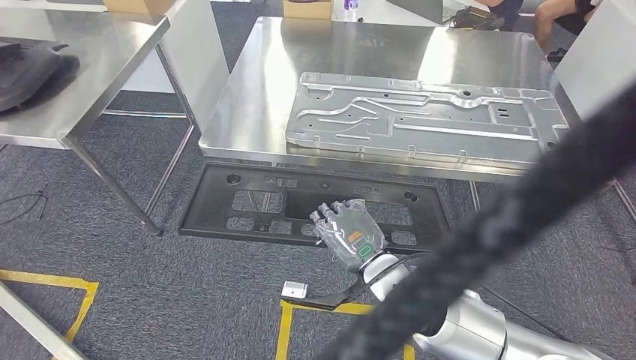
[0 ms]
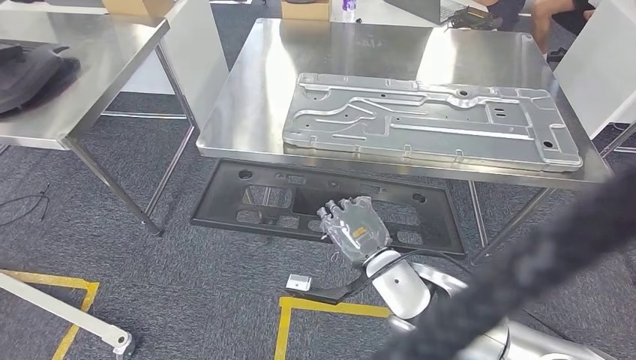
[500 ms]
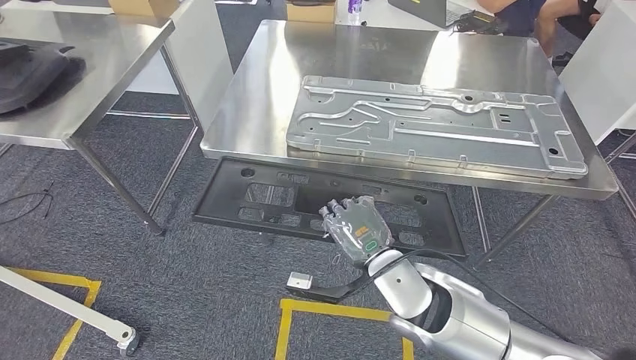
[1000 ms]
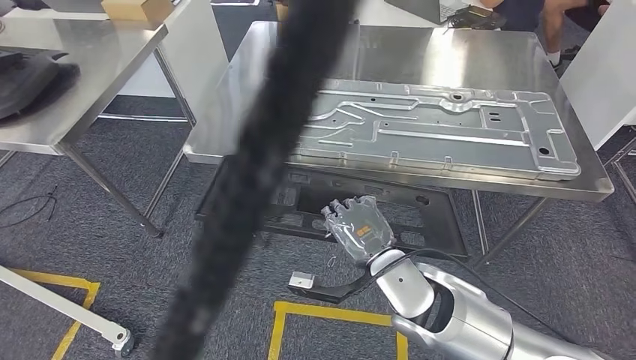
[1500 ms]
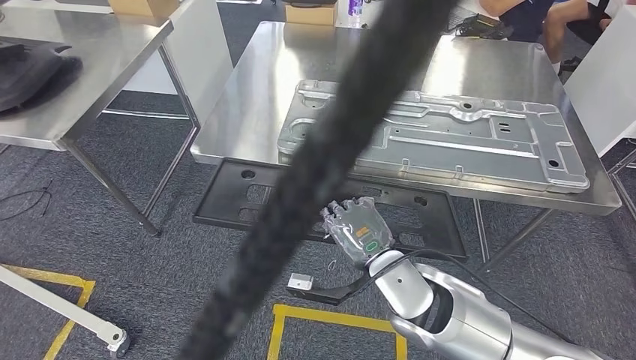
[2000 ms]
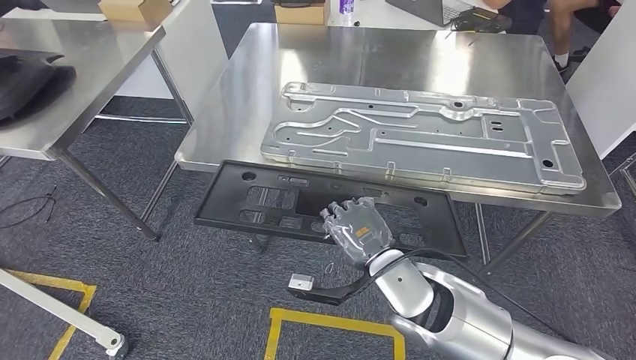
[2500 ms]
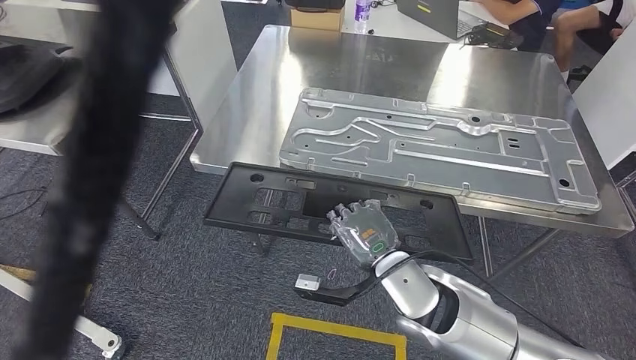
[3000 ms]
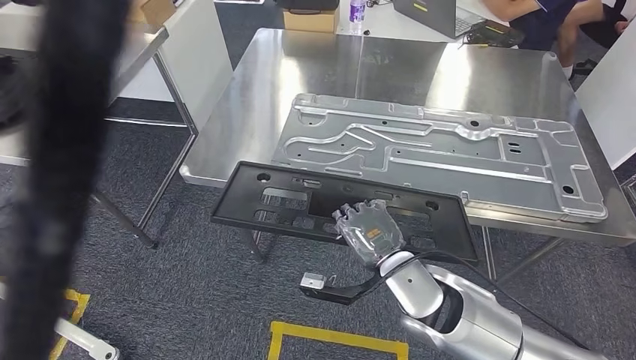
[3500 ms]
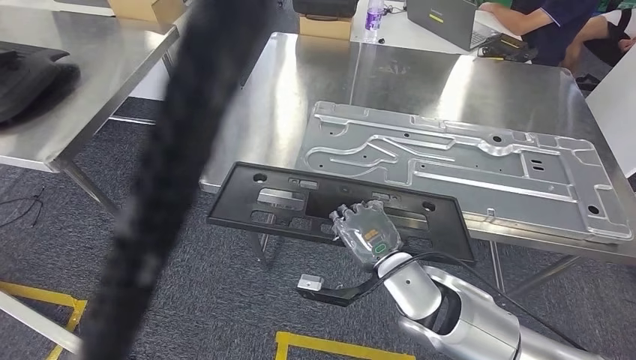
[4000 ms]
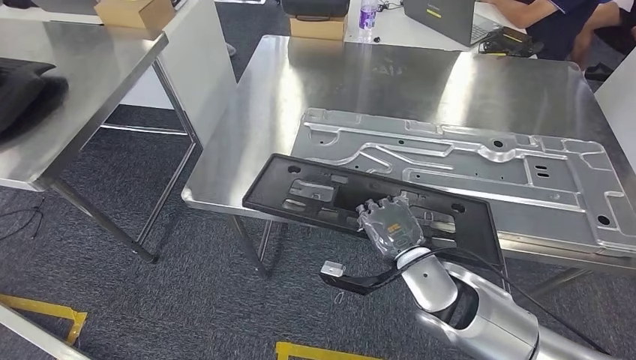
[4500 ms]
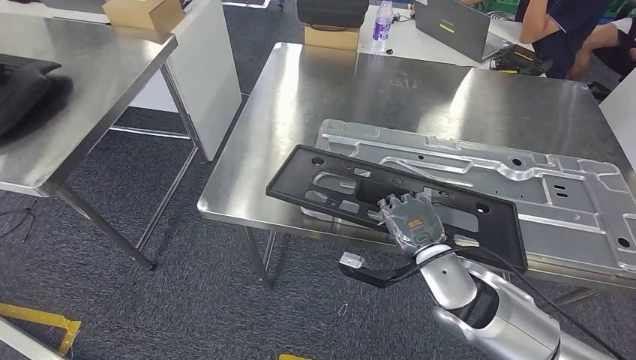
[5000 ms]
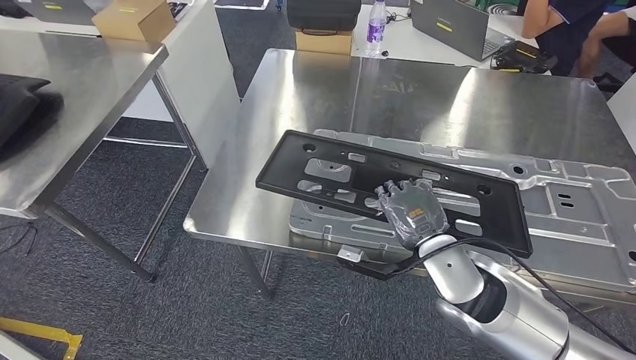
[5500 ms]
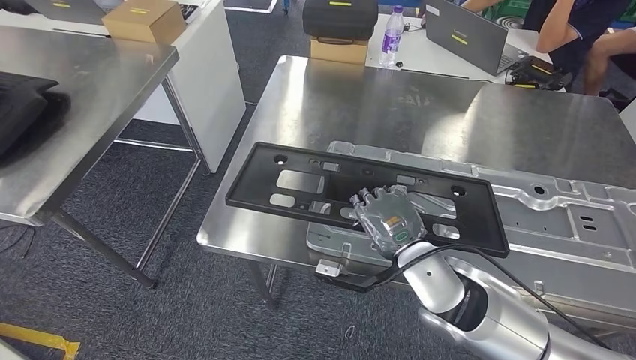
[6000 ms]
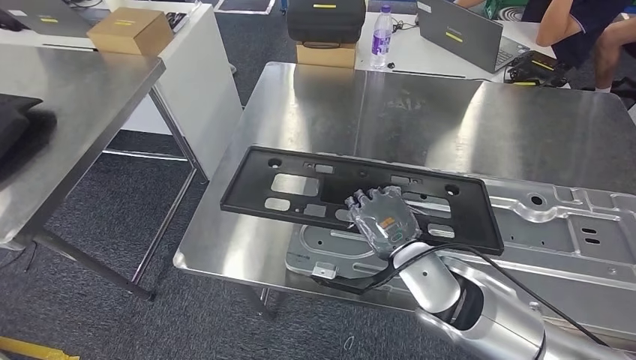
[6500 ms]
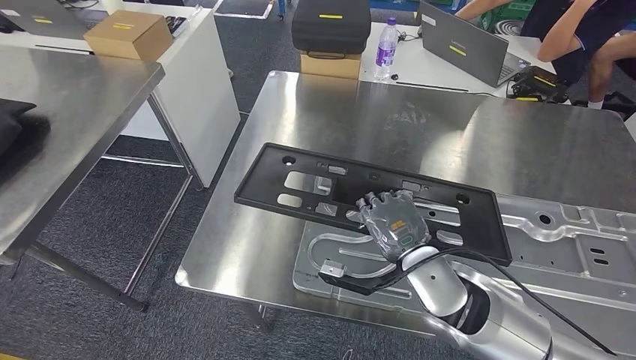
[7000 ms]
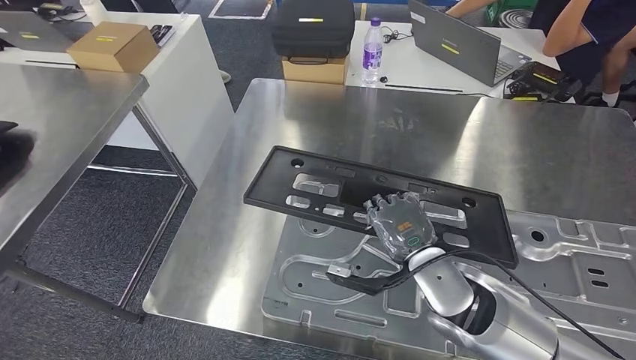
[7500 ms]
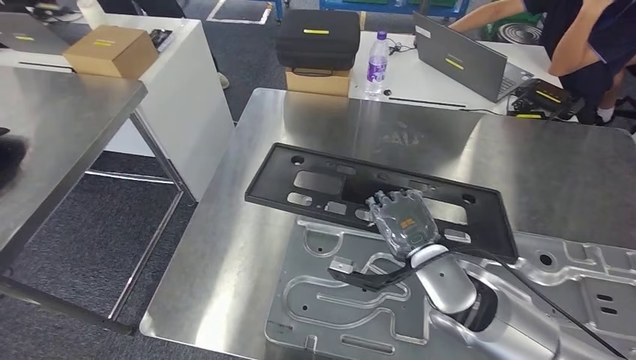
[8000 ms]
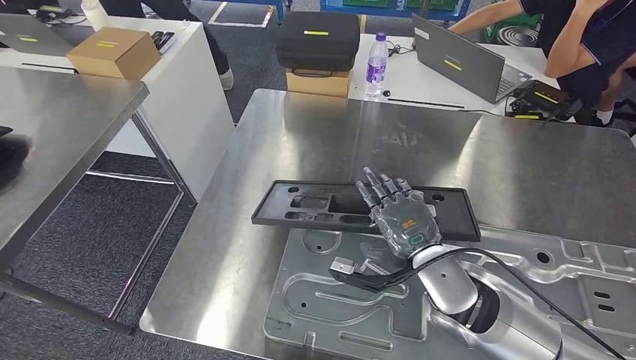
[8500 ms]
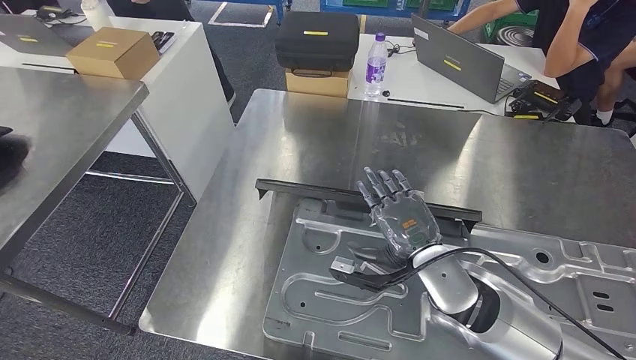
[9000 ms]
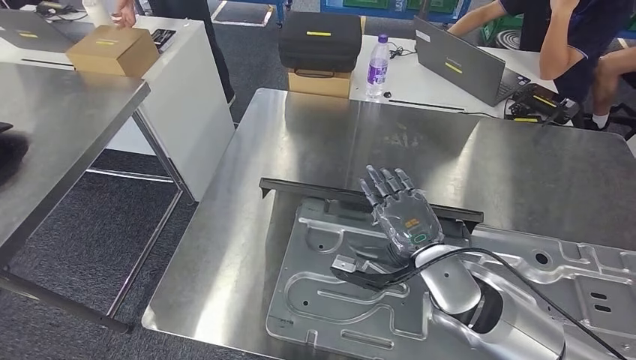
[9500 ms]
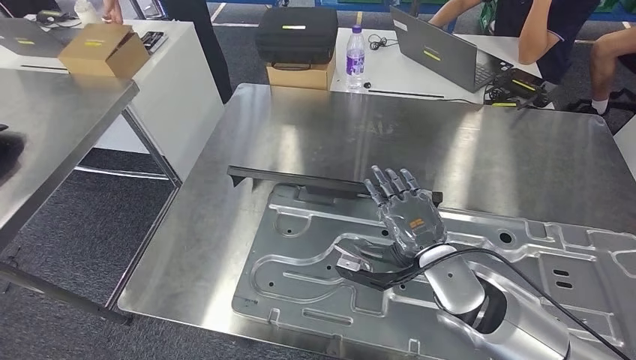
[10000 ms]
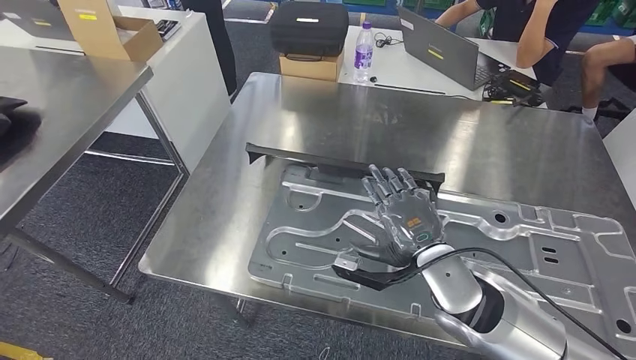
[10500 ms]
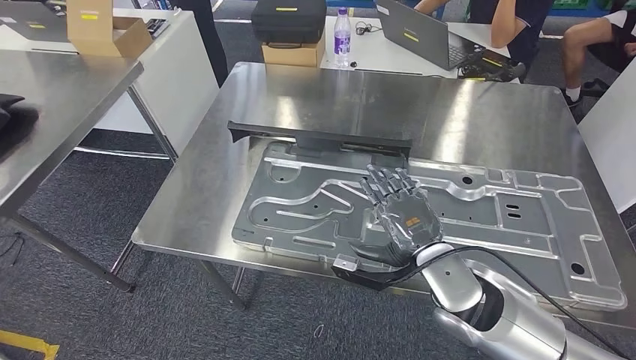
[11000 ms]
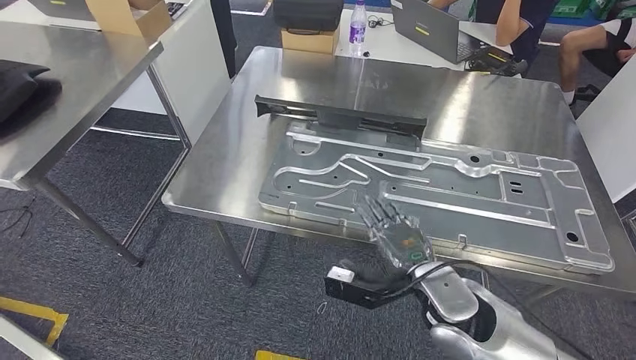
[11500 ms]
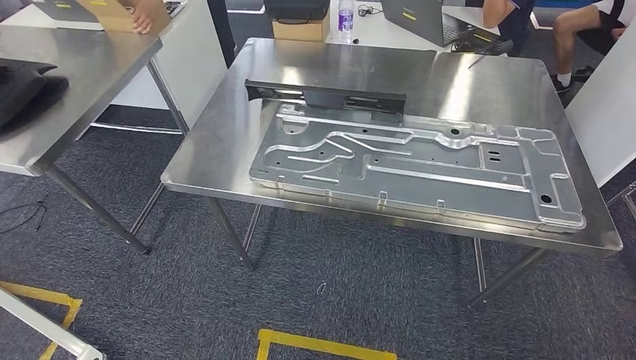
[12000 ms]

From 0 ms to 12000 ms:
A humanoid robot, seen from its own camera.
Step, from 0 ms to 4000 ms: Move the large material to the workbench.
Step, from 5500 ms to 11500 ms: Insert the large material into the corresponding slot on the workbench.

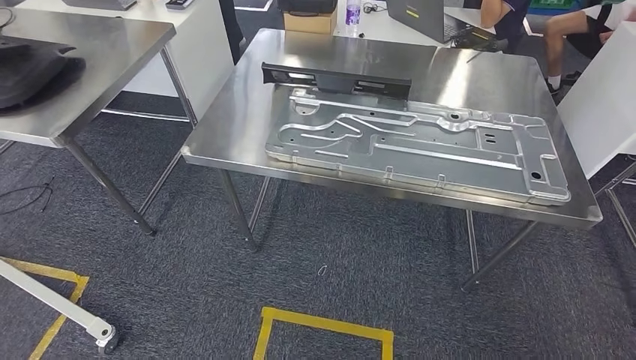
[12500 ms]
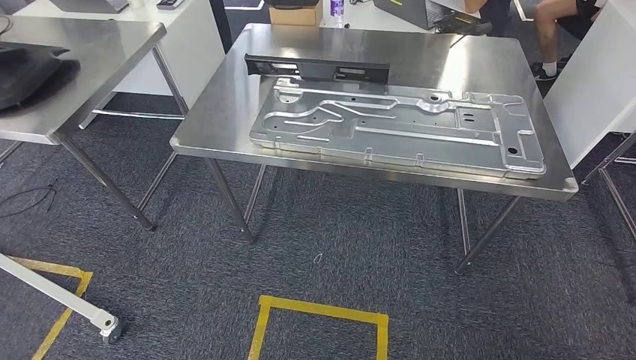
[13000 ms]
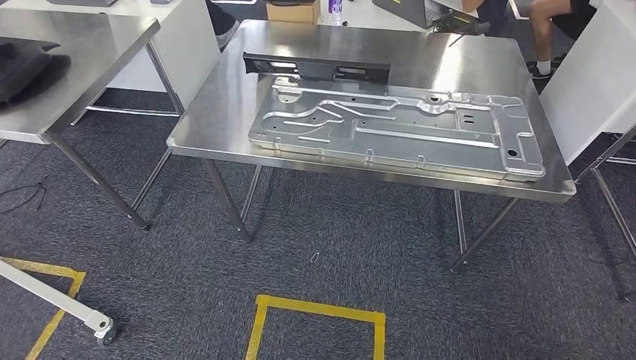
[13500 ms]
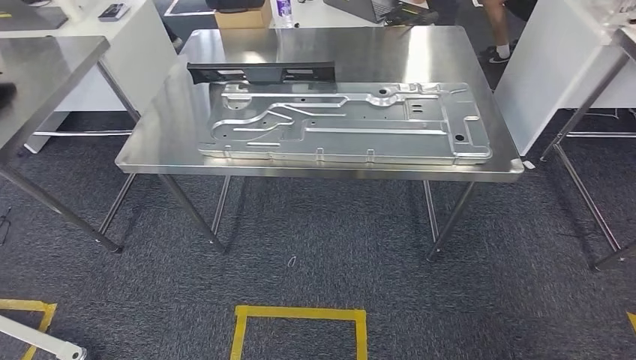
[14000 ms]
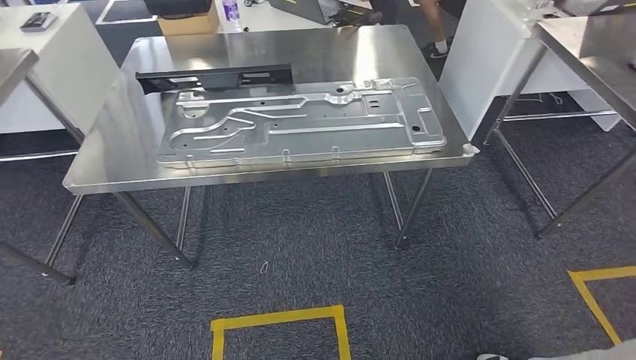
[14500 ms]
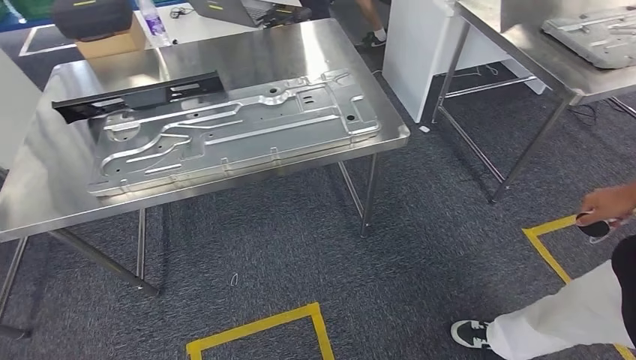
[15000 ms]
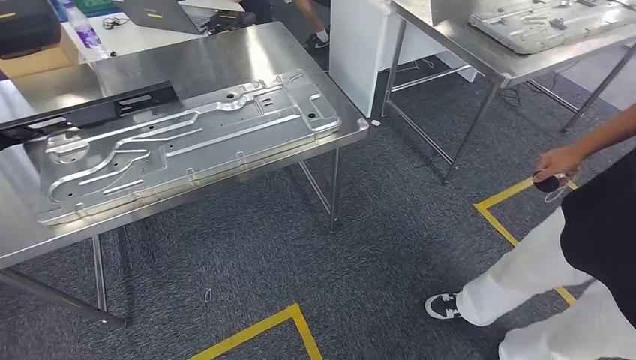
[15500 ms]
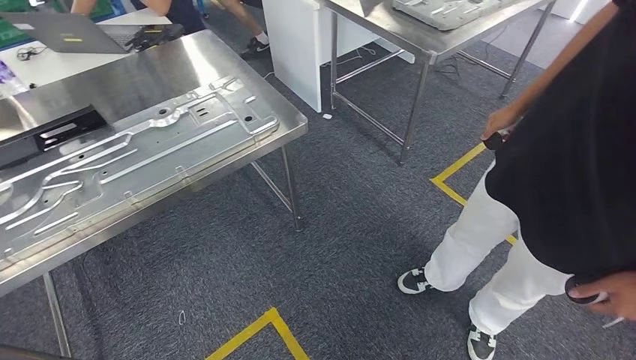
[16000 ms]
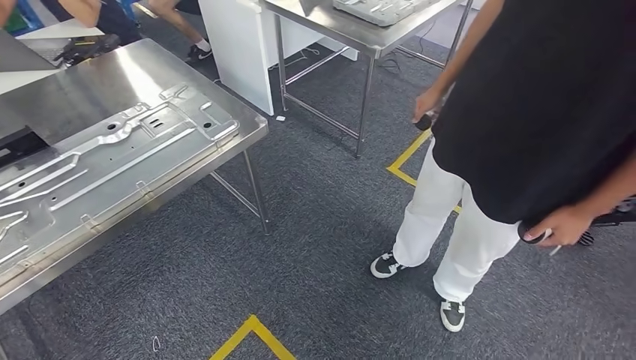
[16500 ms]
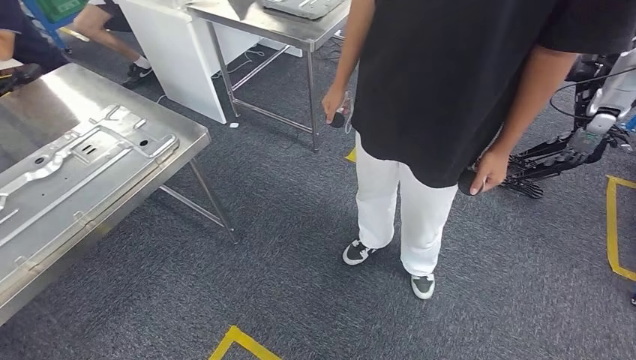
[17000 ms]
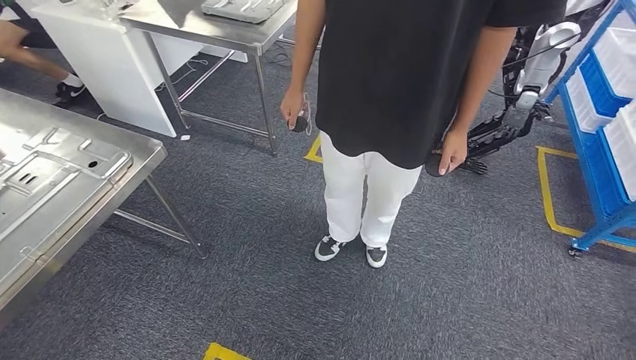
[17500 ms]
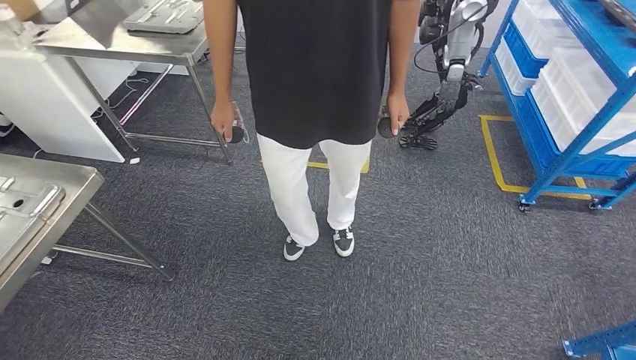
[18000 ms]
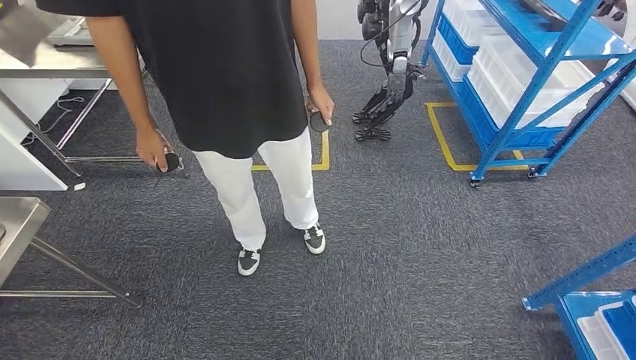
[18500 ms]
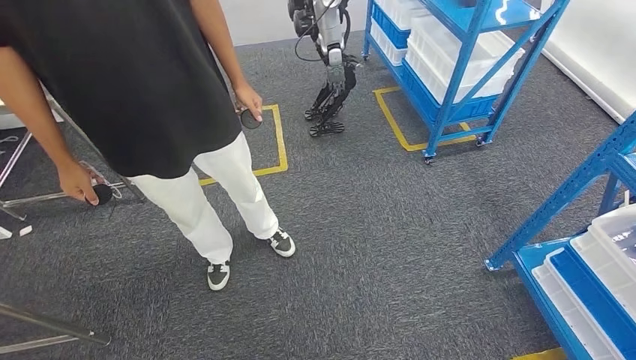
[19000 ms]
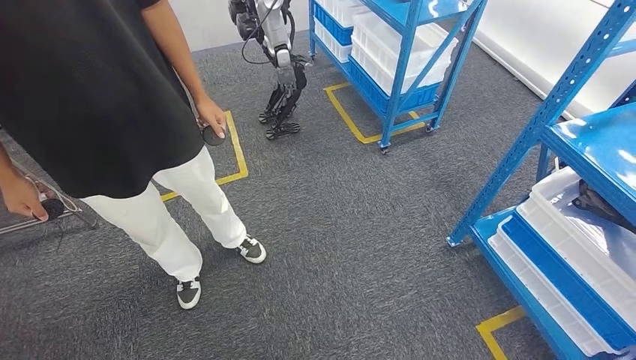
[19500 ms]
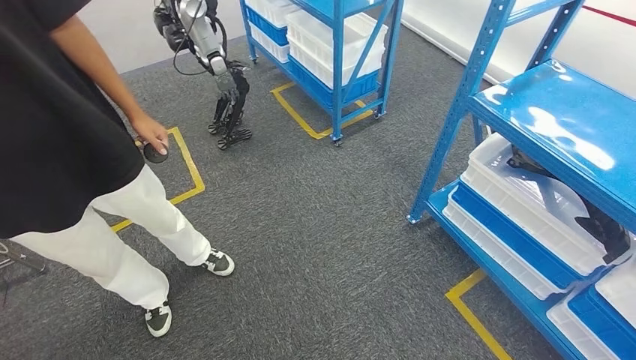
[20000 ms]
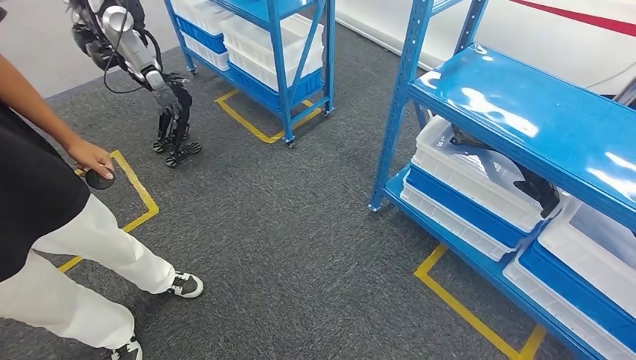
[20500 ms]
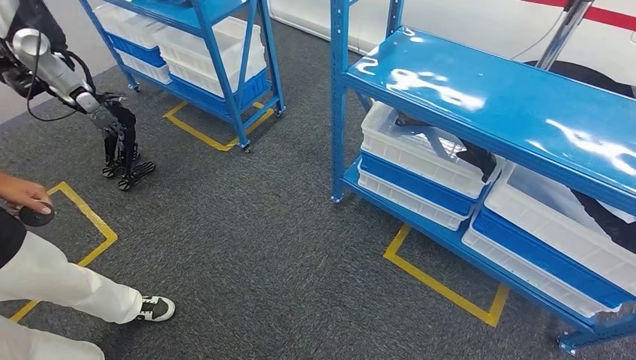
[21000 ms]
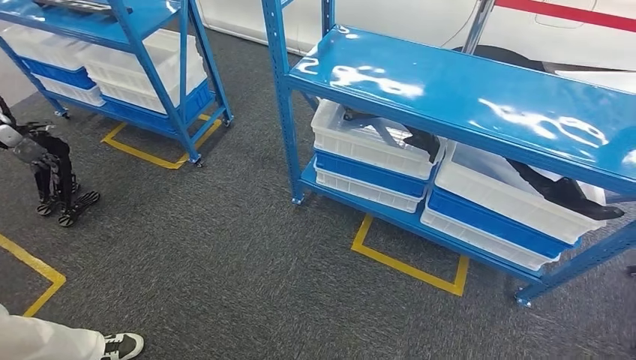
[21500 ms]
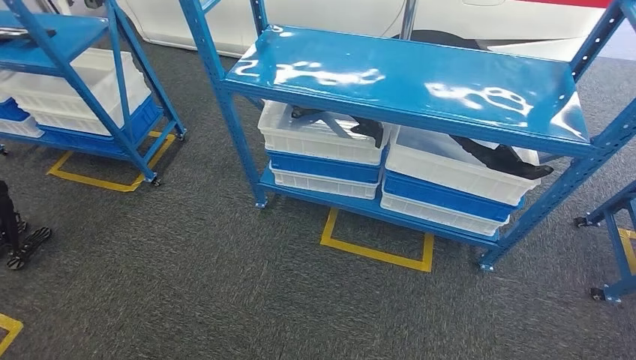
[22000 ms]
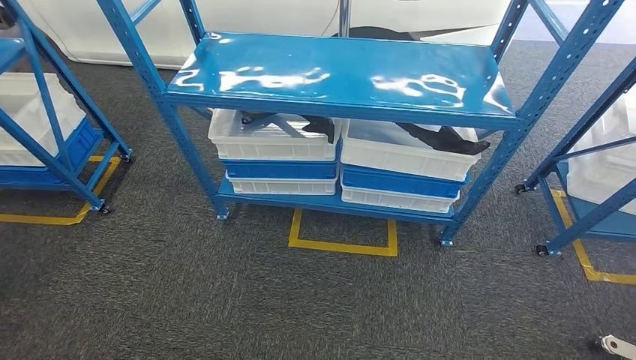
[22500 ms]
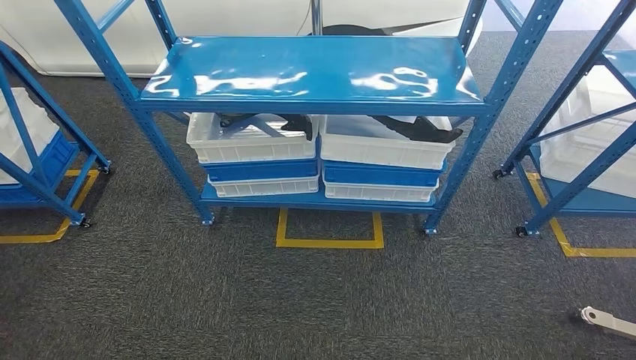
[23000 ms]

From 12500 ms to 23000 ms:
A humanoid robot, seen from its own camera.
Step, from 12500 ms to 23000 ms: Move to the initial position of the shelf.
